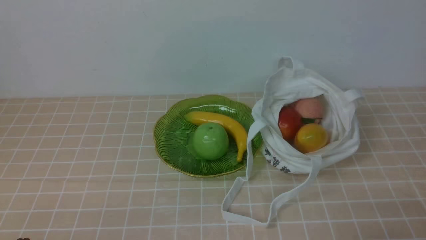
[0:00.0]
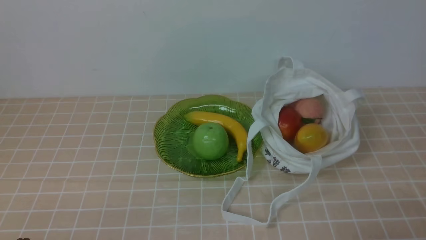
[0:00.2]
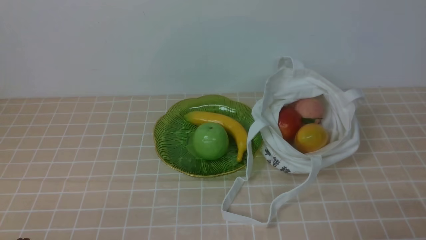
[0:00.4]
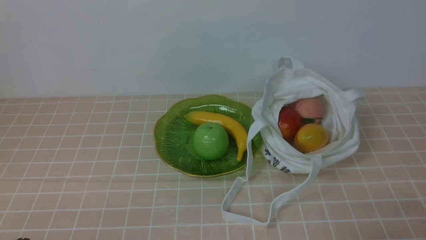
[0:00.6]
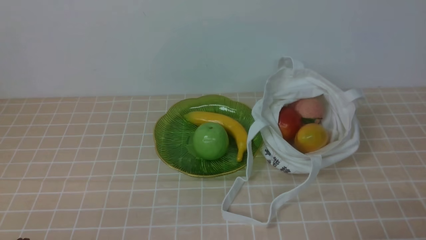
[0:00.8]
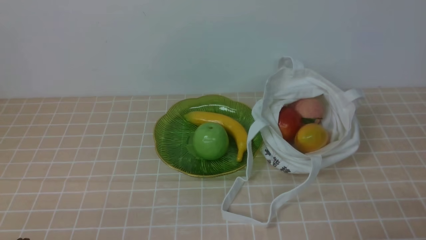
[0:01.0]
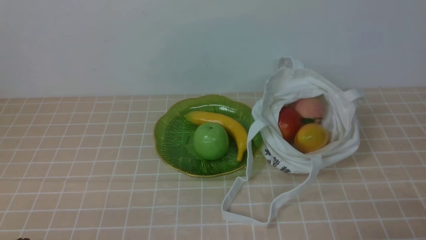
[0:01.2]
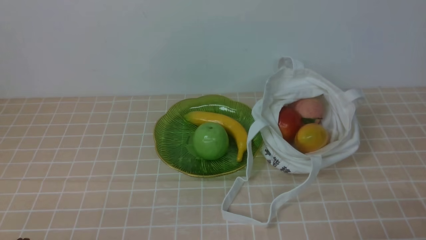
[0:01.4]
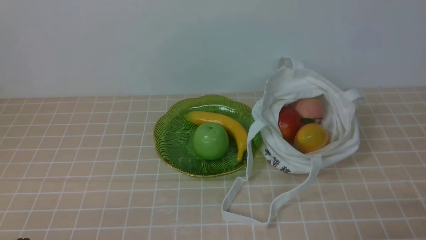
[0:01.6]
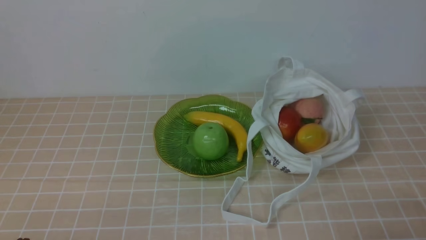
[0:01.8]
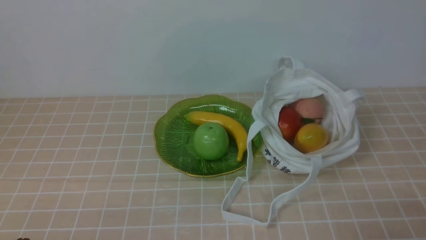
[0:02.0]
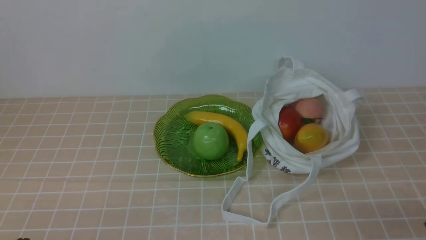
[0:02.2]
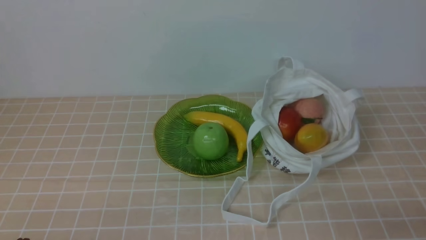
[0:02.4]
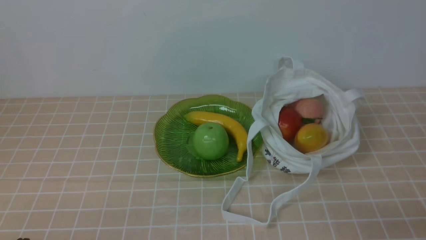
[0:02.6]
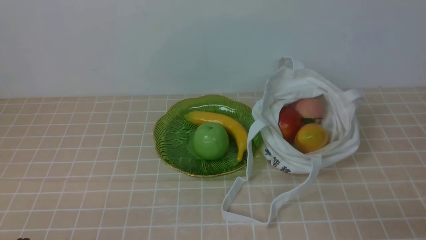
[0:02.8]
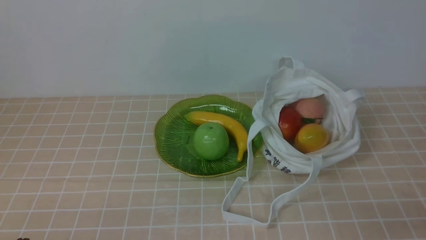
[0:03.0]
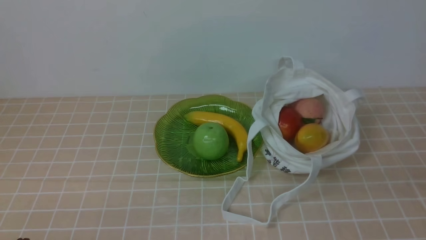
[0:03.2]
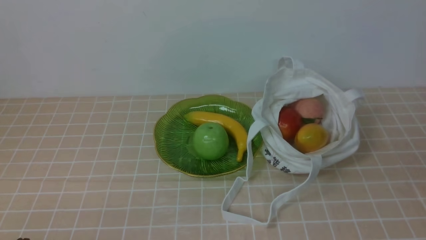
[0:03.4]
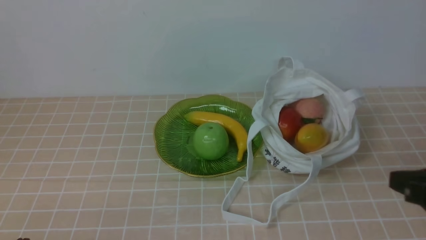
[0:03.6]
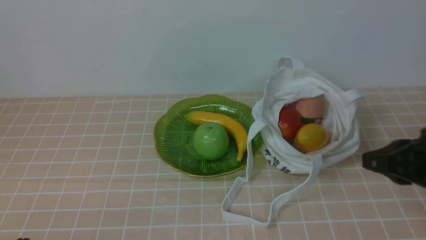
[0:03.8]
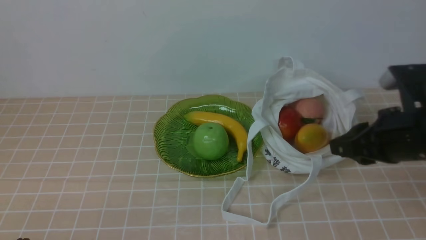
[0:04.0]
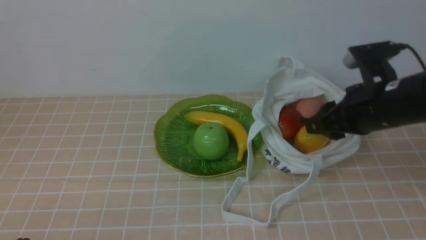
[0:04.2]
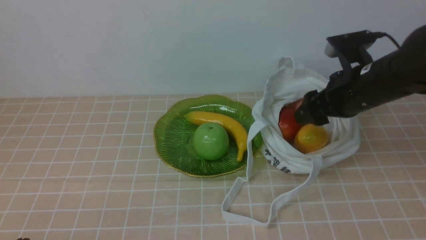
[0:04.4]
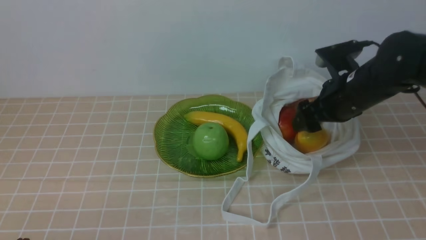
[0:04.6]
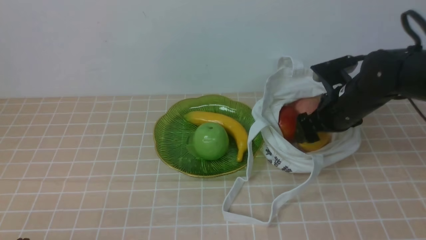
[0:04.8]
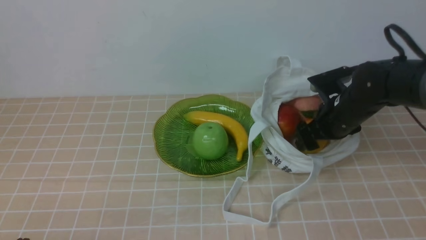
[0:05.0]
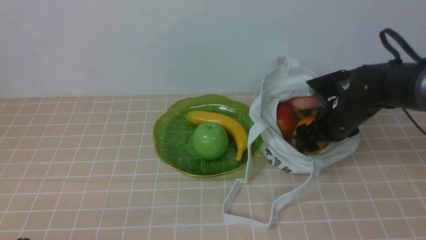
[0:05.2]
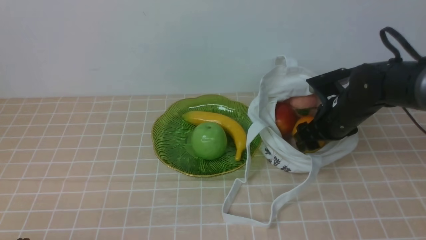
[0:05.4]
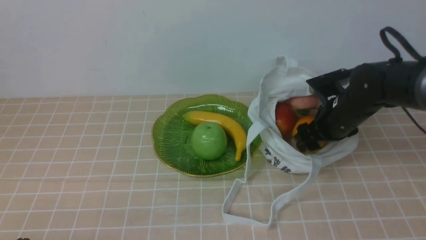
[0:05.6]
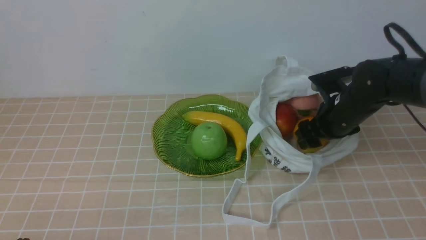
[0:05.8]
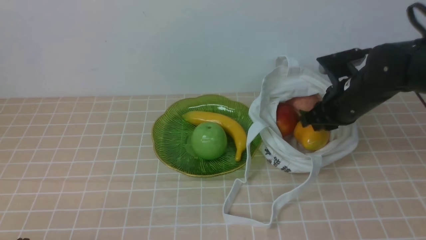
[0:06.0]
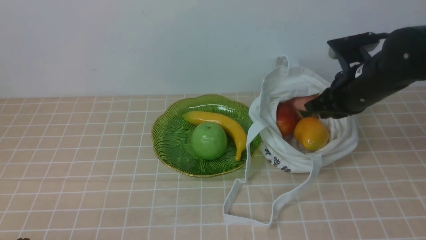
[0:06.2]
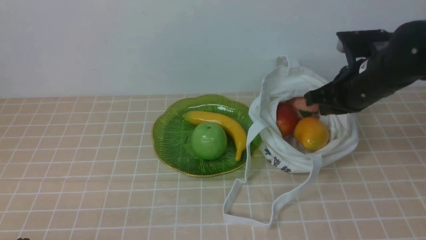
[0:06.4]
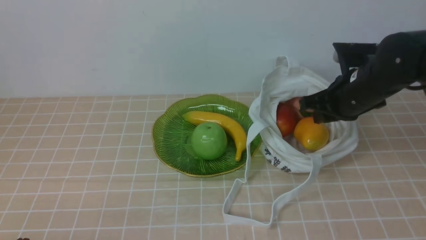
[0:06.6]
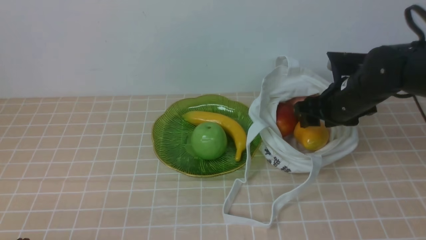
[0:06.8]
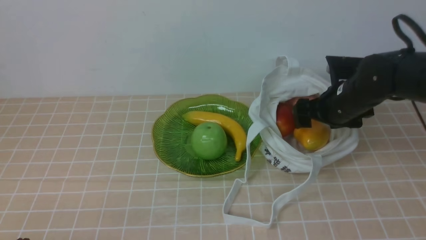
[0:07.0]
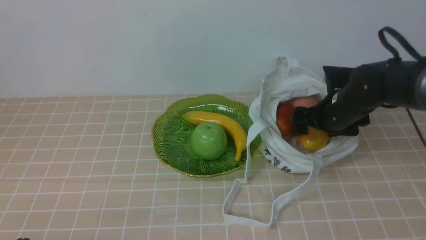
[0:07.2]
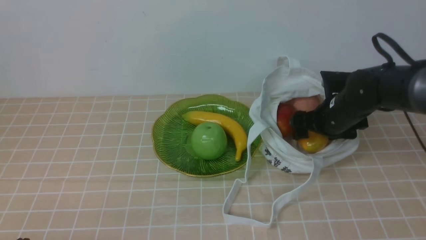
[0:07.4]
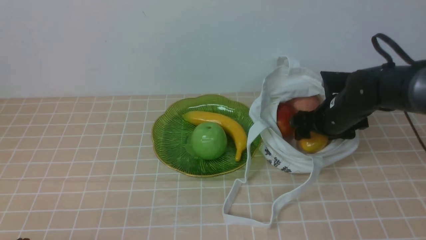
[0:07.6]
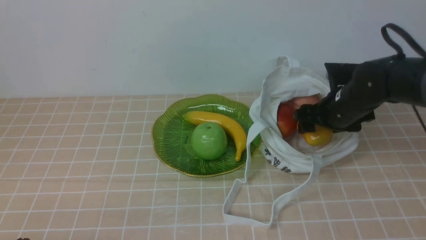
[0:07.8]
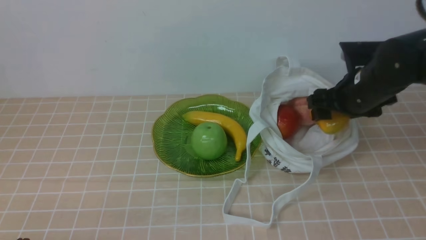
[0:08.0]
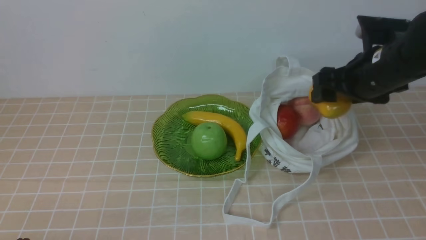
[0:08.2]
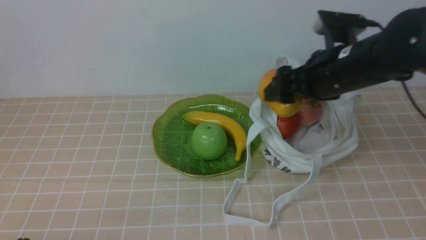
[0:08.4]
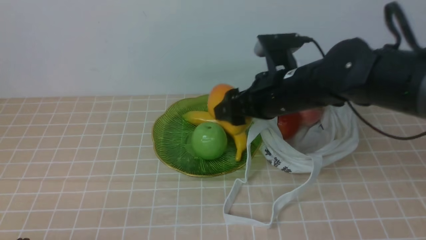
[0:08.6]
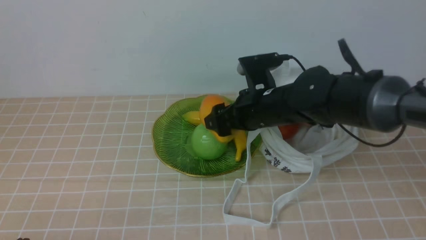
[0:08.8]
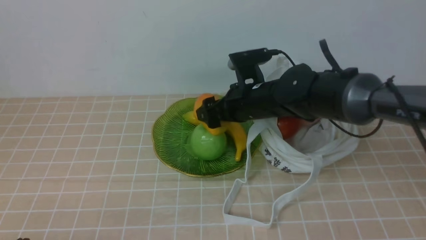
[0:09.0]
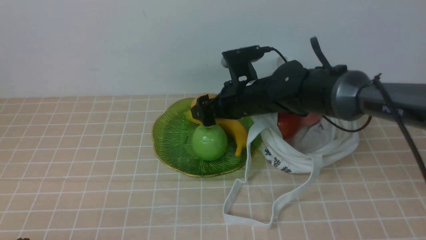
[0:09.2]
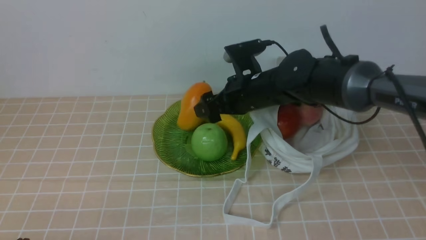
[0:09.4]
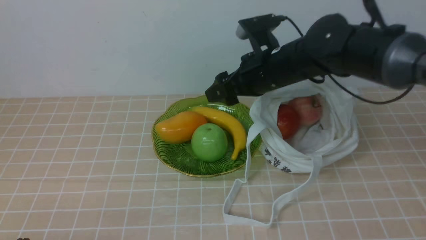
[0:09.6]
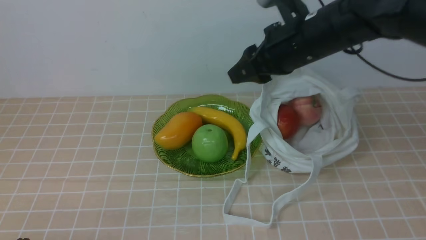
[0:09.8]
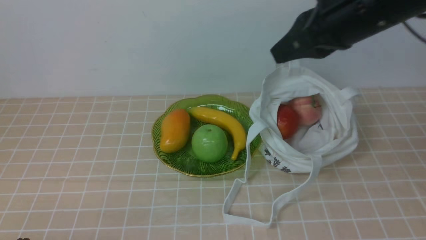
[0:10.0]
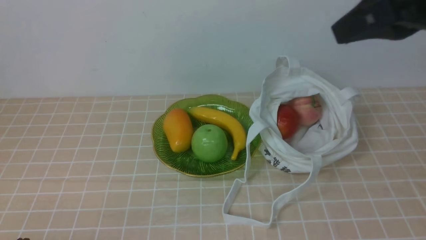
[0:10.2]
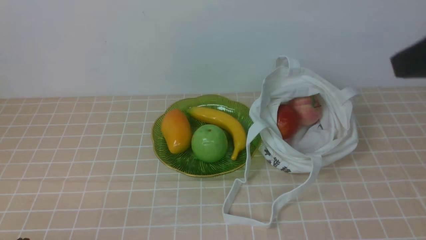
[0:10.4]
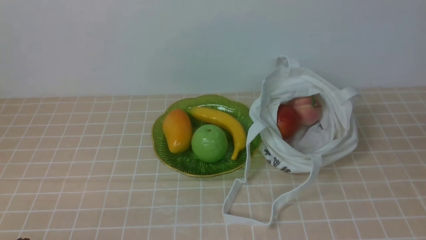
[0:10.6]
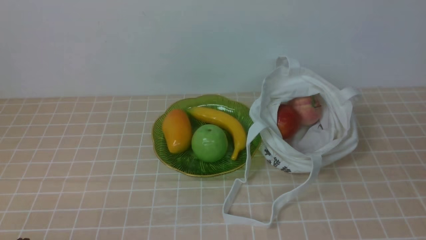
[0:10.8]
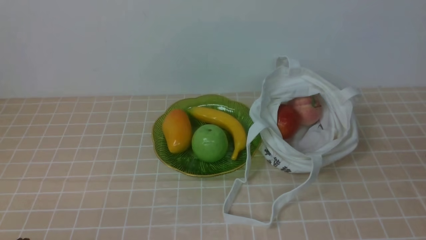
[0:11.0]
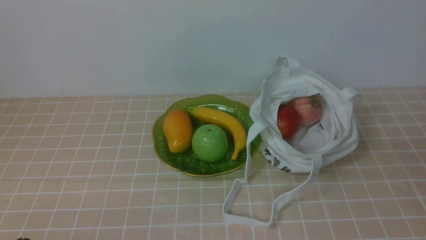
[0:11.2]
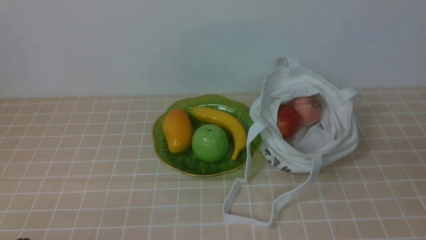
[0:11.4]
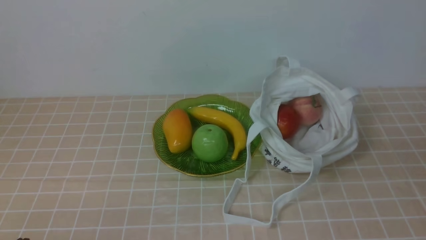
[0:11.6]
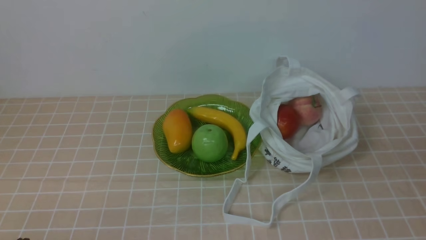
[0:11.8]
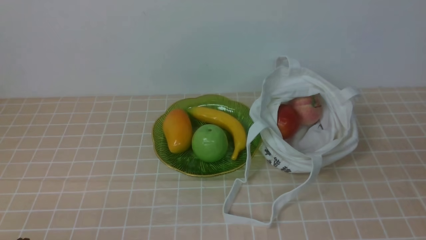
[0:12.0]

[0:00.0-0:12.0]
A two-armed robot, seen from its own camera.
Step, 0:00.0 to 0:07.6: use the right arm to grab a mango from the bag.
Step, 0:08.0 to 0:09.4: use the right arm to put the mango into the empty plate on the left.
0:00.0 to 0:01.6: Neither gripper changes place.
0:03.0 to 0:04.4: The right gripper goes approximately 30 cm forward, and opens.
0:04.4 to 0:06.0: The right gripper closes its fingers.
0:06.0 to 0:07.6: The right gripper ends up approximately 5 cm from where it was, and opens.
0:07.6 to 0:09.0: The right gripper shifts approximately 15 cm to the left.
0:09.0 to 0:10.4: The right gripper moves upward, backward and to the right, about 35 cm, and closes its fingers.
0:10.4 to 0:12.0: The right gripper goes about 20 cm downward and backward.

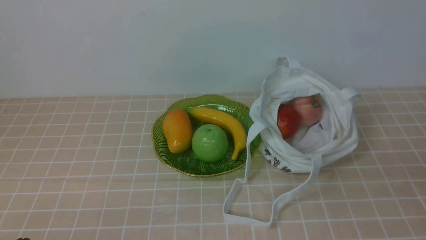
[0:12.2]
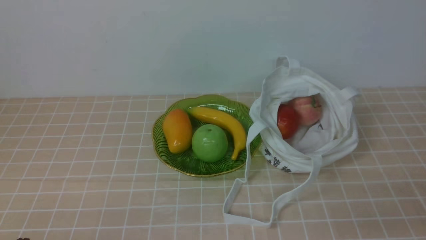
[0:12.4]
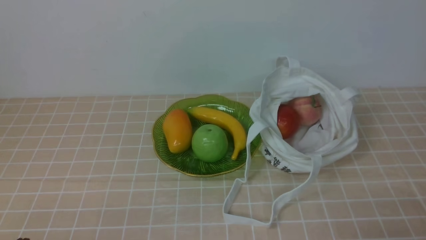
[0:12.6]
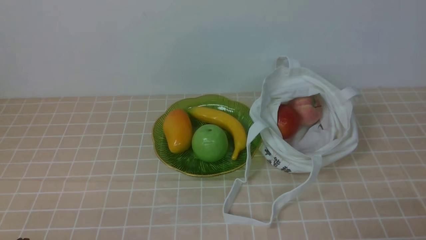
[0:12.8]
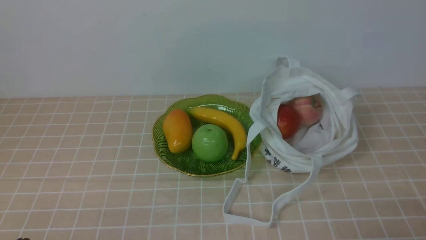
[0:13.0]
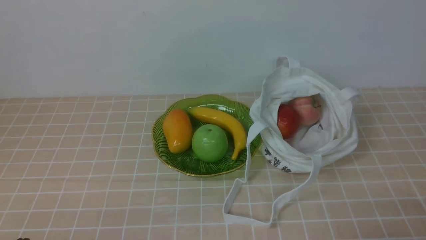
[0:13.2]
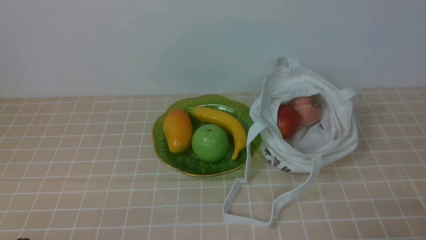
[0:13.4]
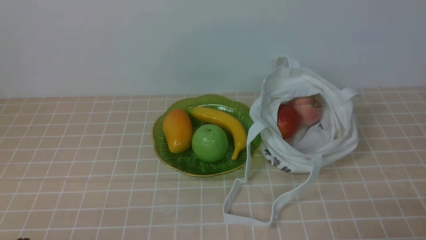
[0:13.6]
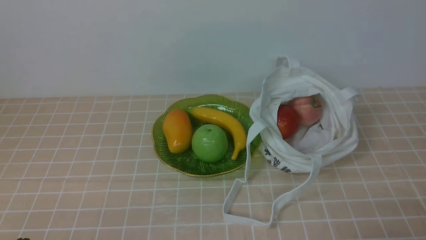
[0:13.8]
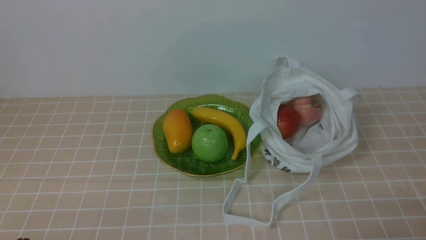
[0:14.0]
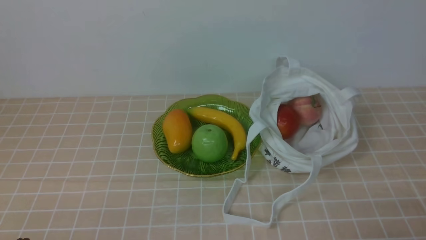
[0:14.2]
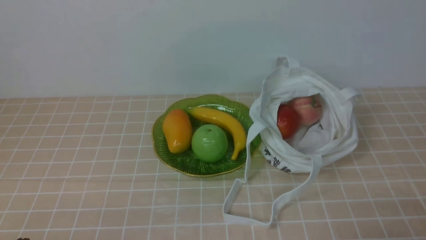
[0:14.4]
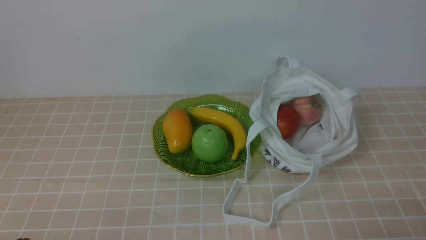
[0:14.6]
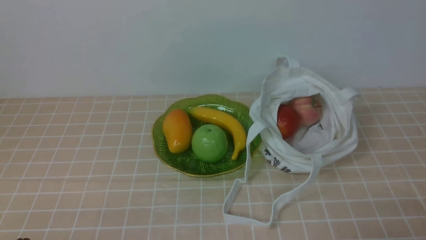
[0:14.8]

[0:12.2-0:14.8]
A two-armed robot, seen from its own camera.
0:13.4 to 0:14.8: Both grippers stay put.
